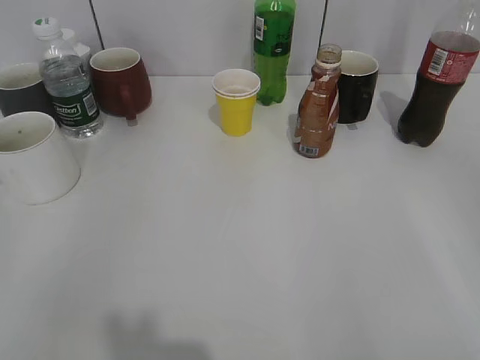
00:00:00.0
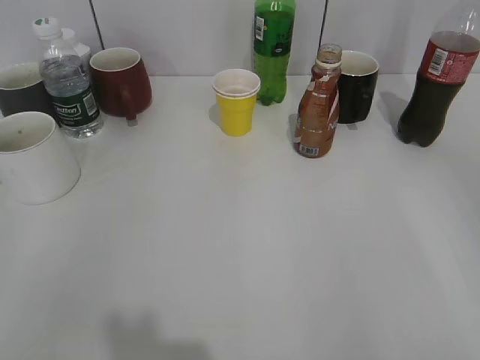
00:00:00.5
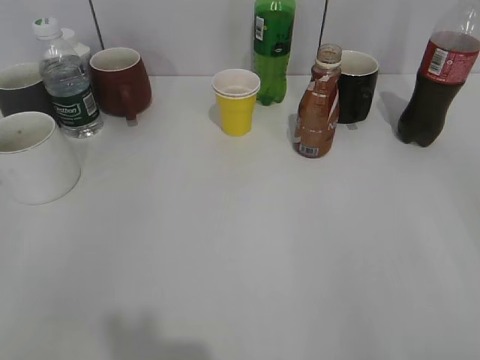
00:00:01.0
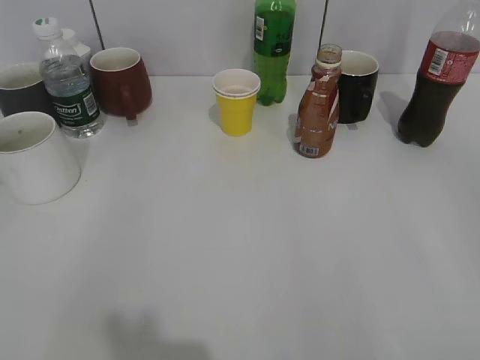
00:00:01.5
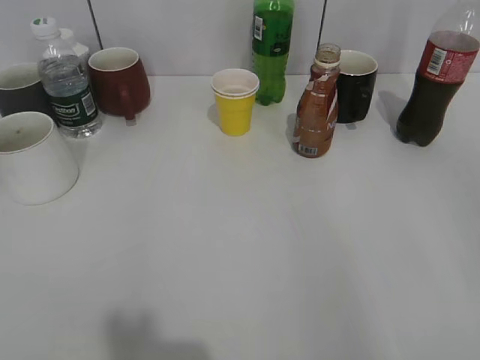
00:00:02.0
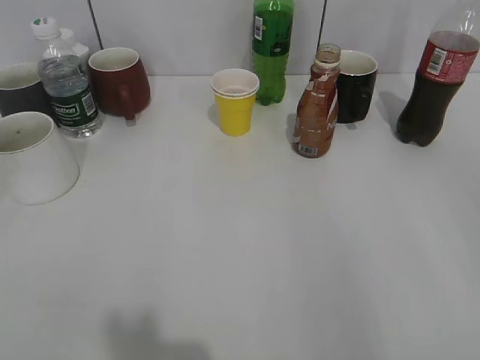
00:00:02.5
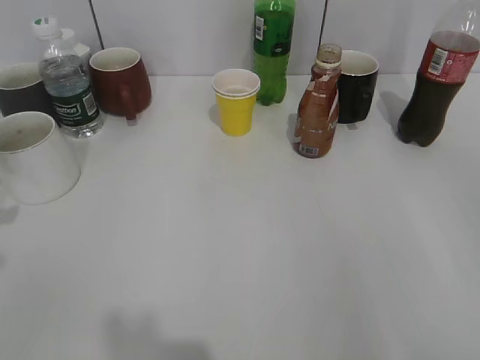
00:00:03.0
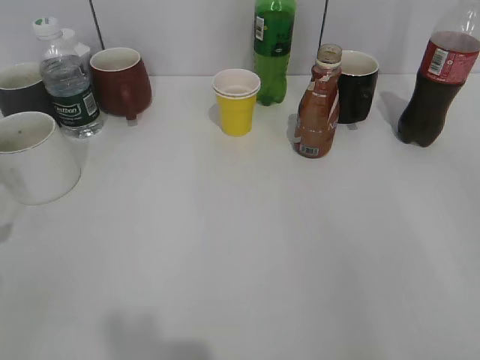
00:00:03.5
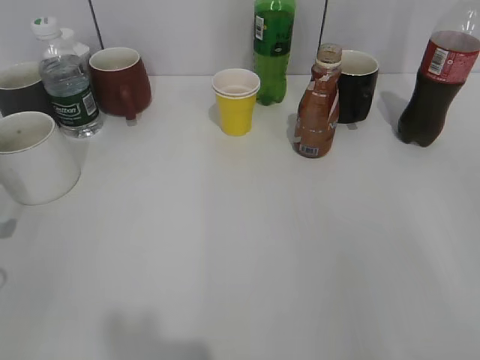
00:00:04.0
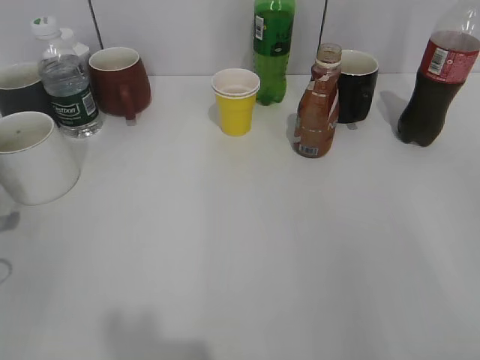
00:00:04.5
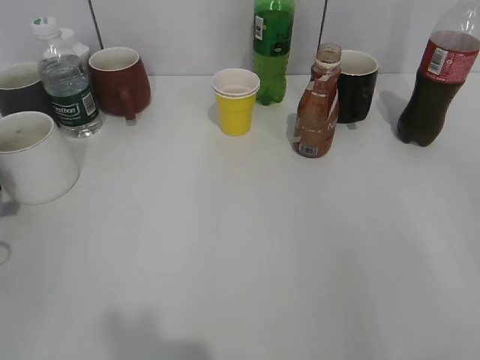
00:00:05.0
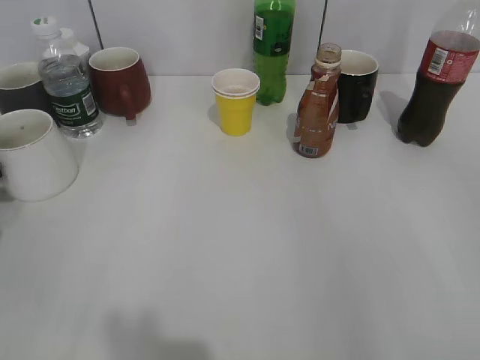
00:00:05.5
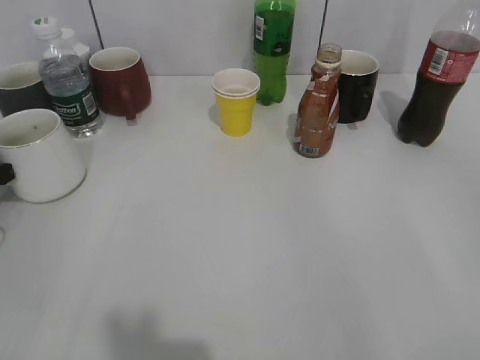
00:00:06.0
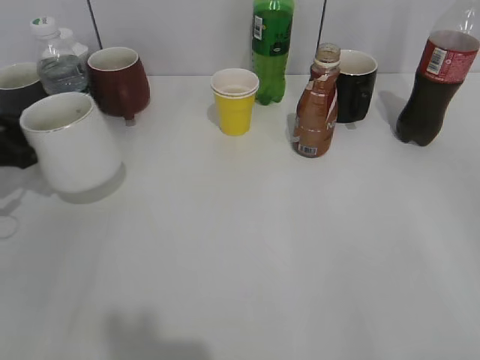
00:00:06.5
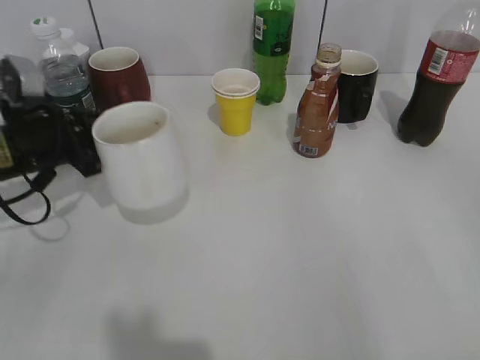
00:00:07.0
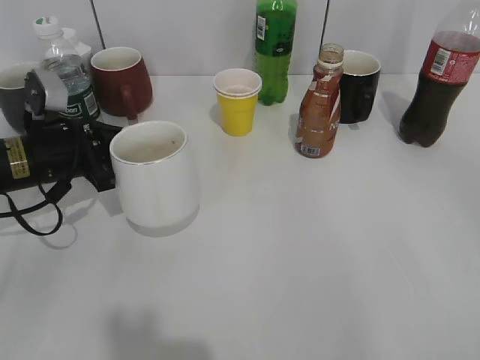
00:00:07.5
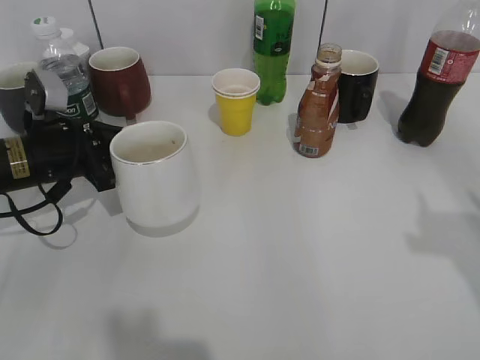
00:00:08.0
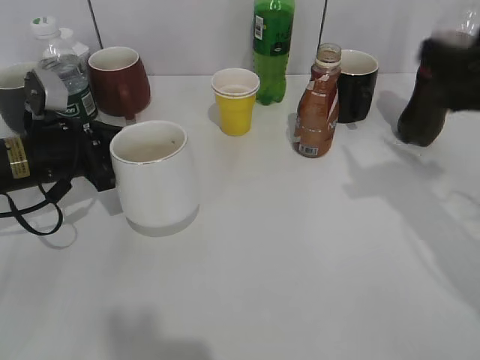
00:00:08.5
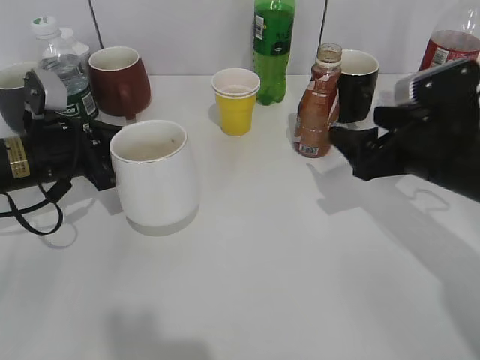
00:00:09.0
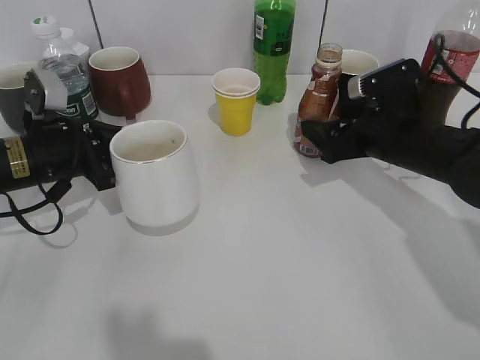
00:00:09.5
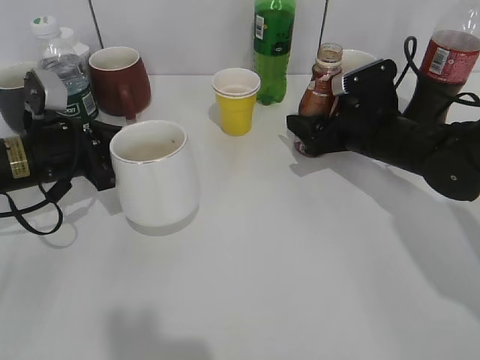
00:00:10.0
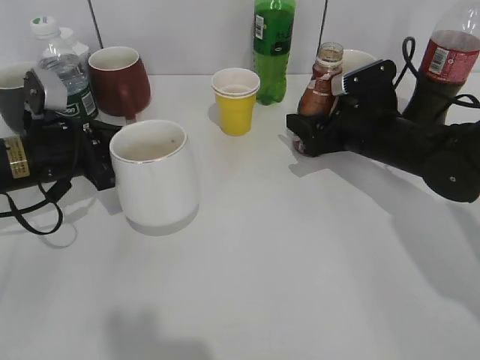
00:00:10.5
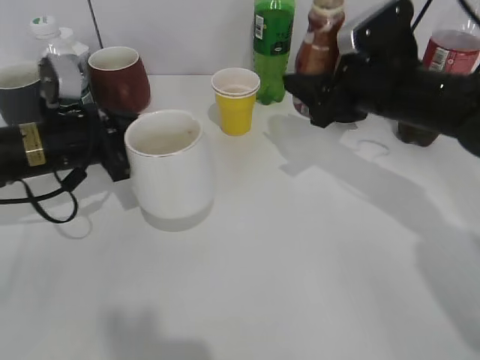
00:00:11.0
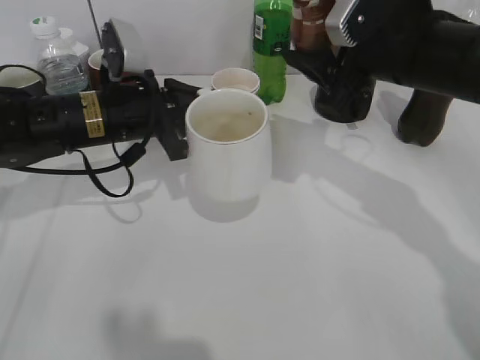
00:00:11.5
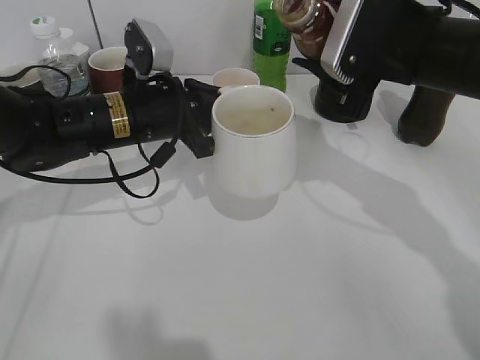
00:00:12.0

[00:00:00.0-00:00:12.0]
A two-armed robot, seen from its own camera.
Step, 00:00:01.5 to 00:00:06.0: Grasp the white cup with left gripper.
Step, 00:00:06.5 to 00:00:07.5: Lift the white cup with left gripper.
Step, 00:00:08.5 to 00:00:10.5: Grasp the bottle with coffee with right gripper.
00:00:02.0 to 00:00:04.0: The left gripper goes approximately 15 cm downward and forward.
00:00:04.0 to 00:00:06.0: The left gripper is displaced forward by roughly 10 cm, and closes up.
00:00:06.0 to 00:00:08.0: The left gripper travels to the right by some 15 cm.
00:00:08.0 to 00:00:10.0: The right gripper shifts about 35 cm forward, downward and to the left, and opens and closes again.
00:00:10.0 to 00:00:12.0: The left gripper goes roughly 10 cm to the right. Meanwhile the right gripper heads upward and backward, covering some 15 cm, and closes.

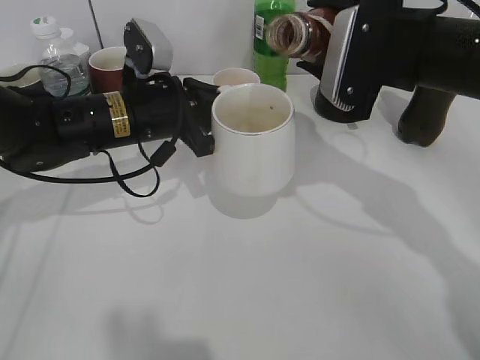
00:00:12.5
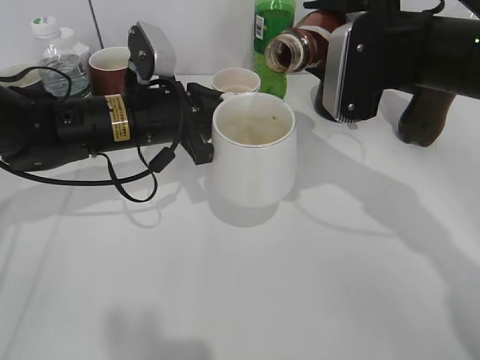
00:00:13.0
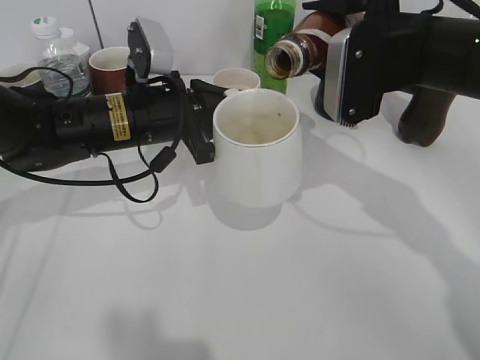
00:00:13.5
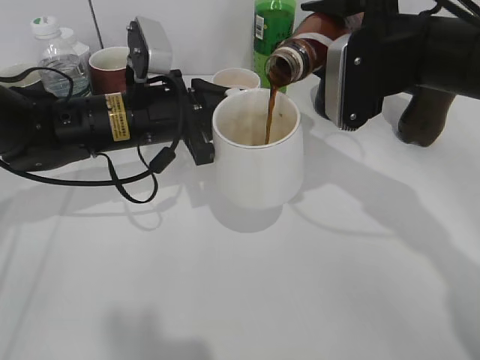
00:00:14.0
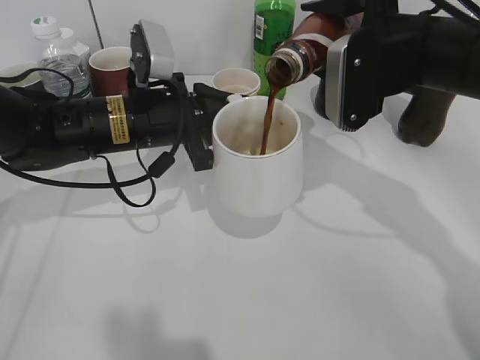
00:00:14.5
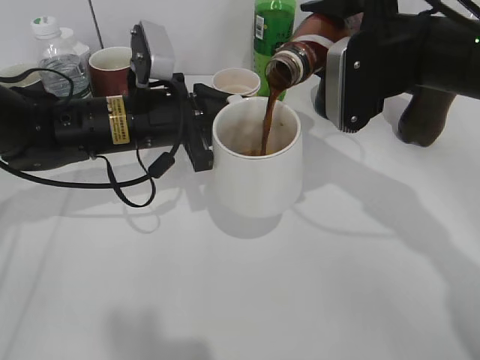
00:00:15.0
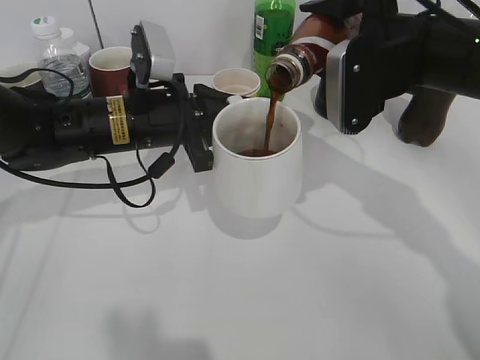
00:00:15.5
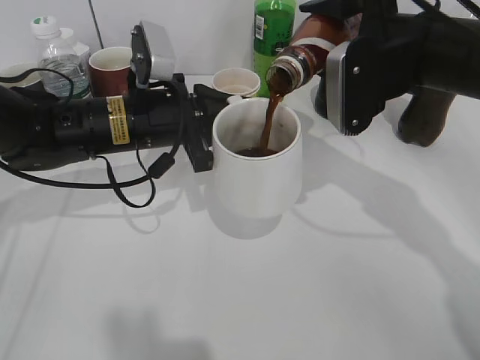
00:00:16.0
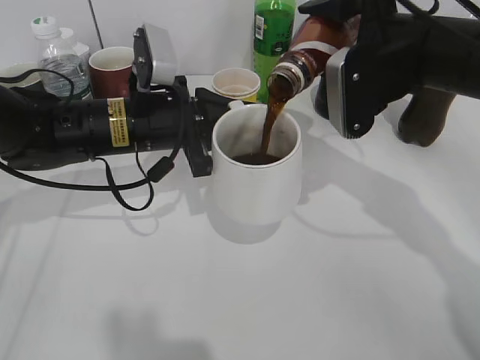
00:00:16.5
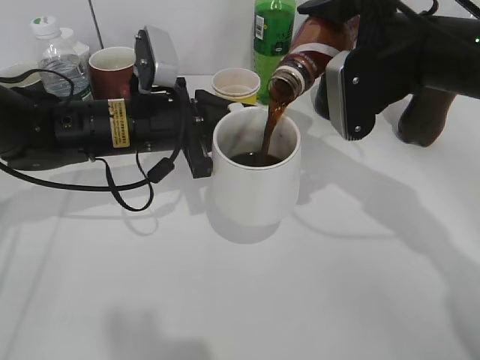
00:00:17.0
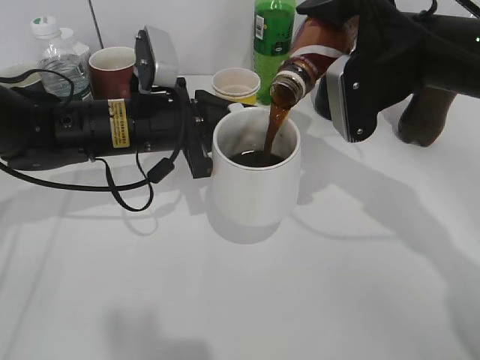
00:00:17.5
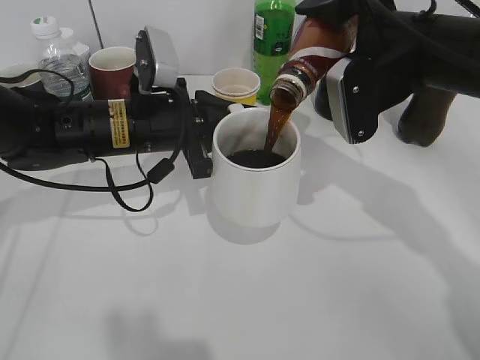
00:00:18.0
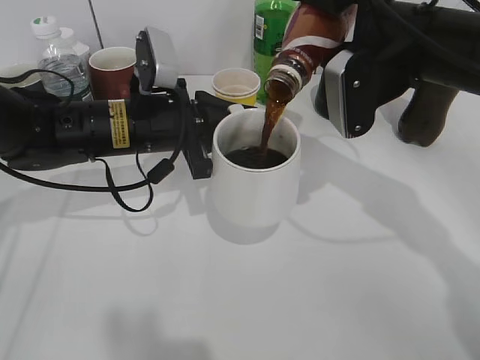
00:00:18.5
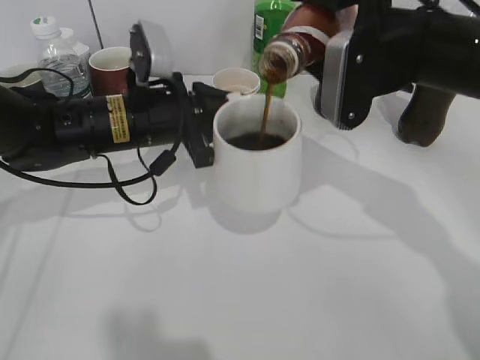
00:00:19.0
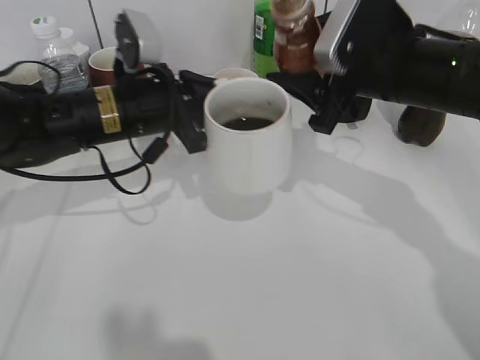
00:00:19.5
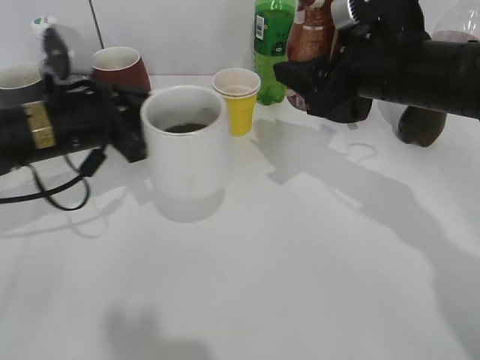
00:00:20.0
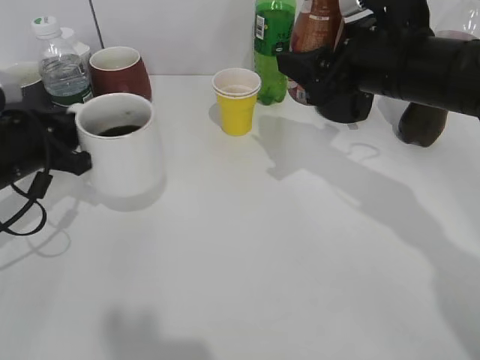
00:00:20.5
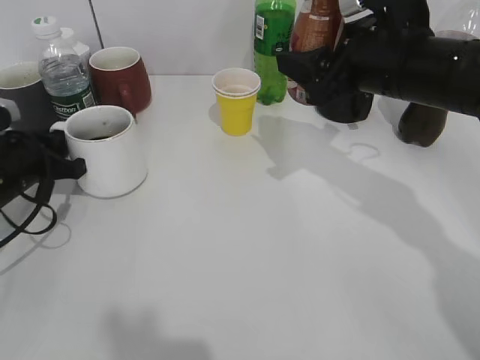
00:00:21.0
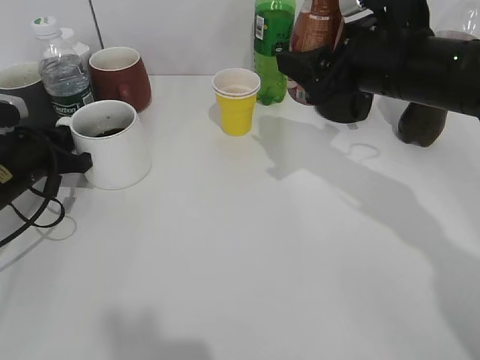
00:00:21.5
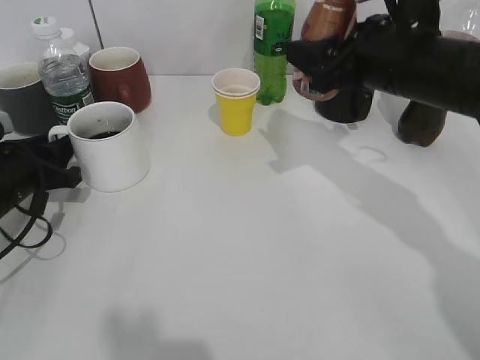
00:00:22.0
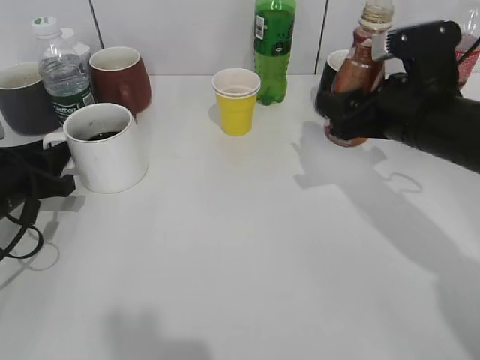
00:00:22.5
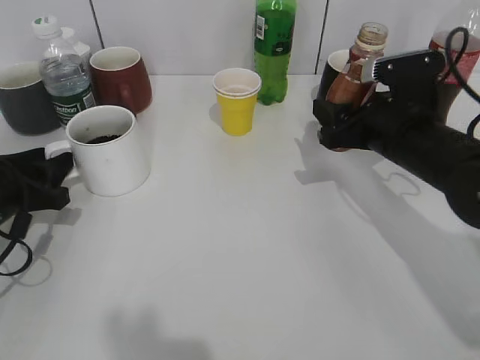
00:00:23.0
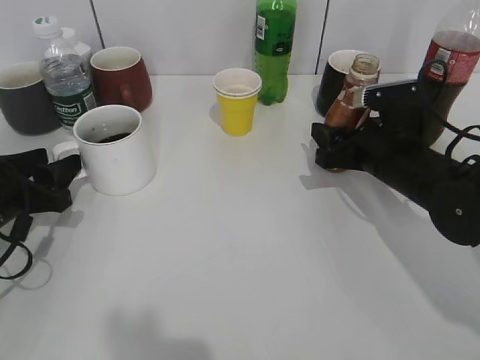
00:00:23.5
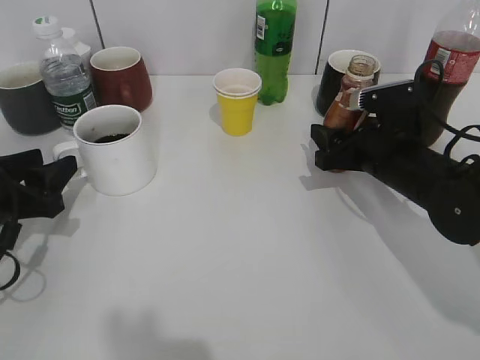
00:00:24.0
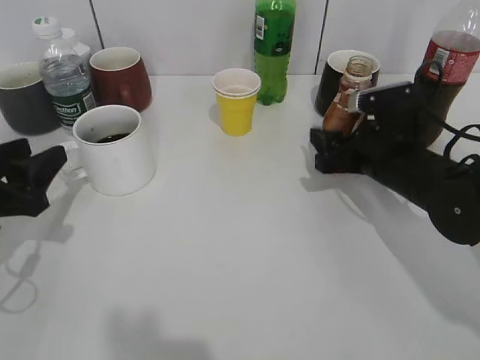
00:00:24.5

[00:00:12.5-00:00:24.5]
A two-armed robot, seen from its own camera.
Step, 00:00:12.5 to 00:00:19.0: Pour the coffee from bottle to cup with right gripper.
Step, 00:00:19.5 to 00:00:23.5: Place the white cup on the table with left gripper.
00:00:12.5 to 00:00:14.5: The grippers stay close to where they were, moving slightly.
00:00:14.5 to 00:00:18.5: There are only small adjustments of the grippers.
00:00:18.5 to 00:00:20.5: The left gripper is displaced to the left by roughly 15 cm.
00:00:20.5 to 00:00:22.5: The right gripper changes place by approximately 5 cm, while the left gripper shifts by about 5 cm, and opens.
00:00:22.5 to 00:00:24.5: The right gripper travels downward by approximately 10 cm, and opens, while the left gripper travels backward by about 5 cm, and opens its fingers.

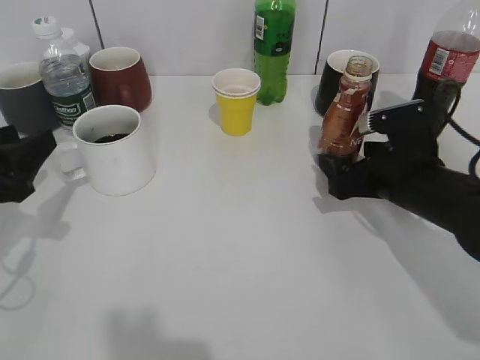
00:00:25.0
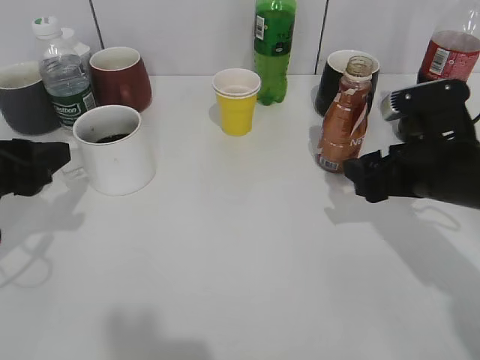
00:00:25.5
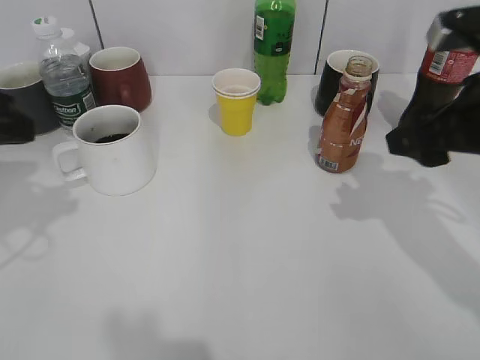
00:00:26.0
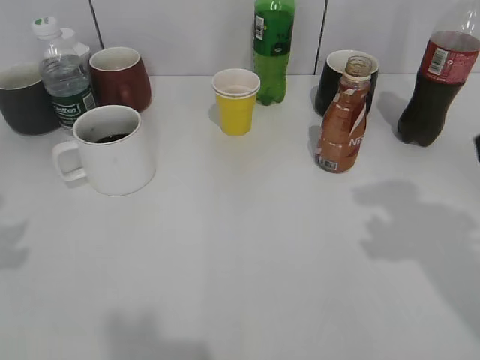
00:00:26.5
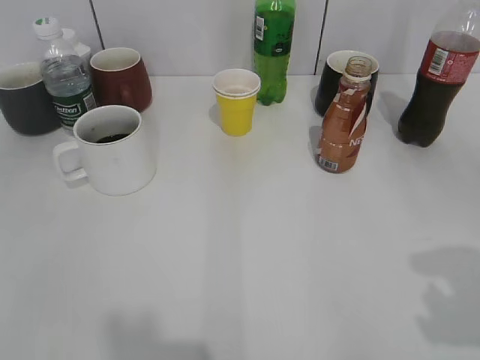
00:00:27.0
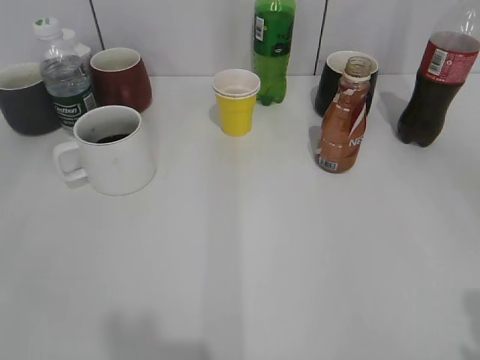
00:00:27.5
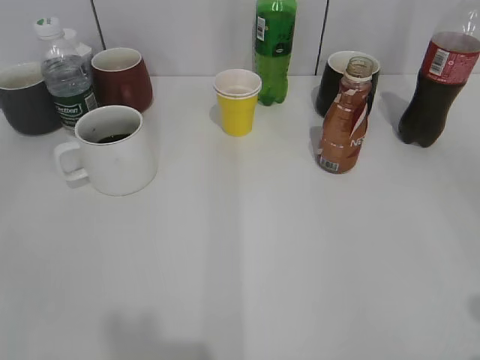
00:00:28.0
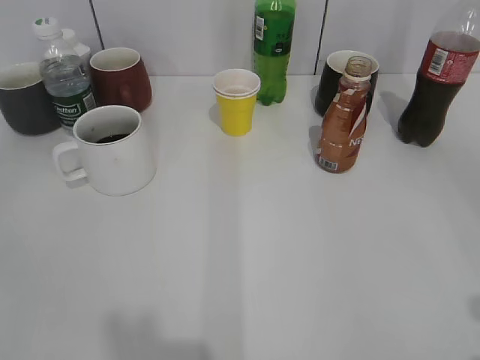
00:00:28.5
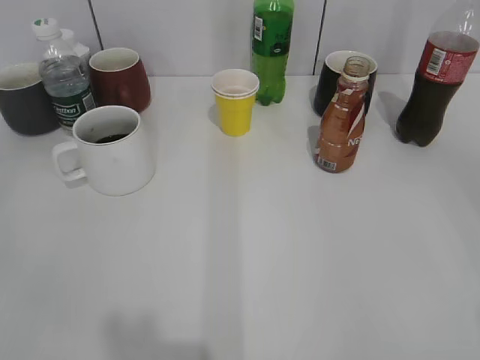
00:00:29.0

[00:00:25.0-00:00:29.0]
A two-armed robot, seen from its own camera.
00:00:25.0 to 00:00:27.0: The left gripper goes roughly 20 cm backward and upward. Meanwhile the right gripper heads backward, upward and to the right, covering roughly 30 cm, and closes its fingers.
00:00:27.0 to 00:00:29.0: The right gripper shifts some 5 cm backward.
